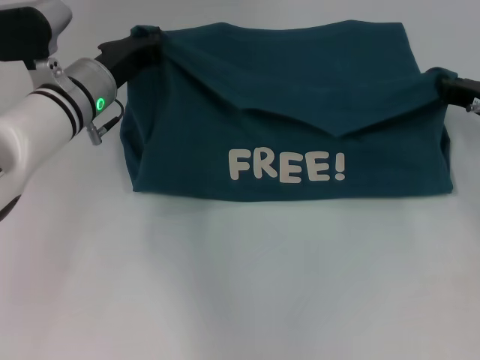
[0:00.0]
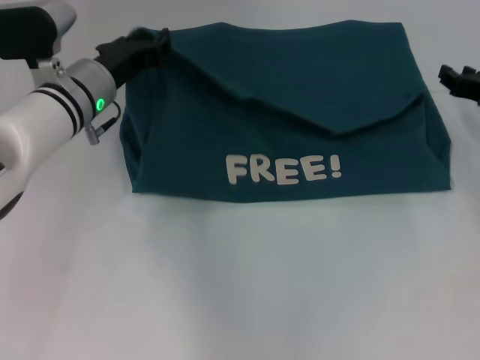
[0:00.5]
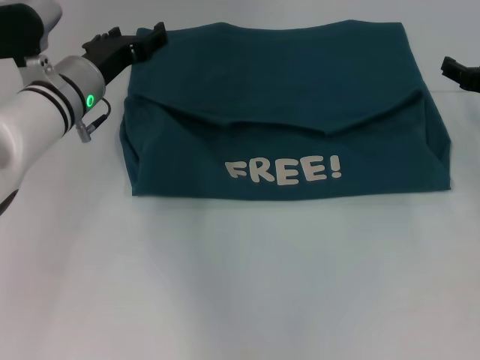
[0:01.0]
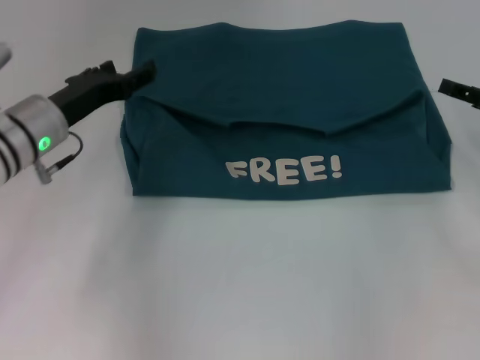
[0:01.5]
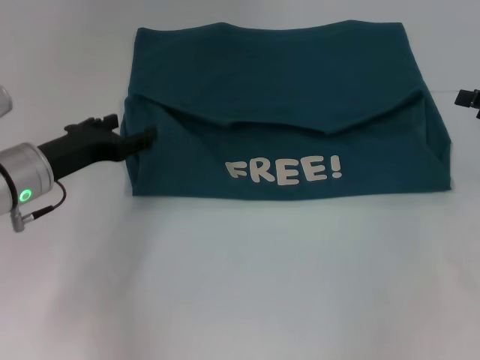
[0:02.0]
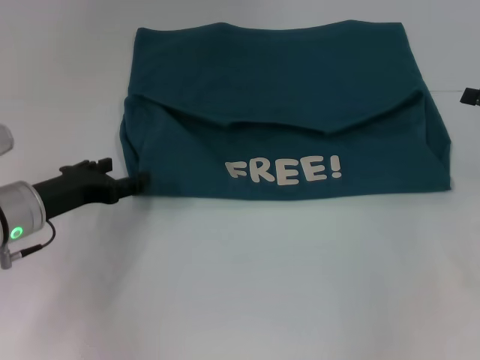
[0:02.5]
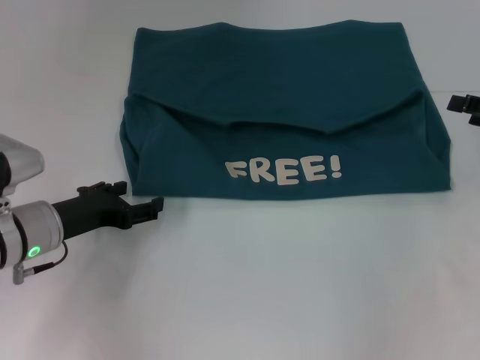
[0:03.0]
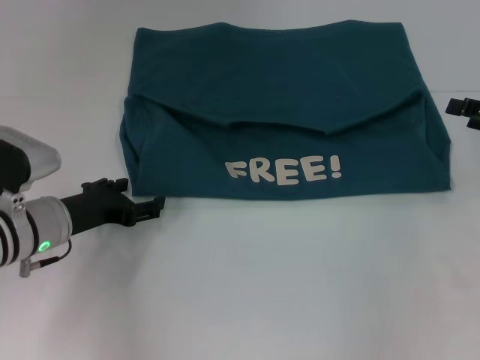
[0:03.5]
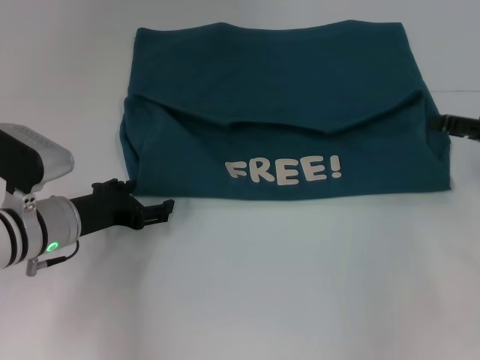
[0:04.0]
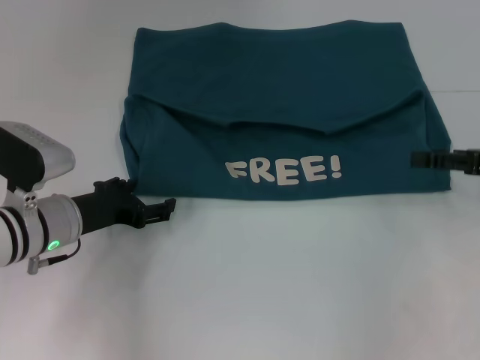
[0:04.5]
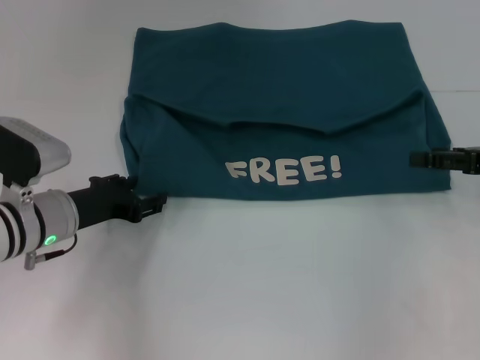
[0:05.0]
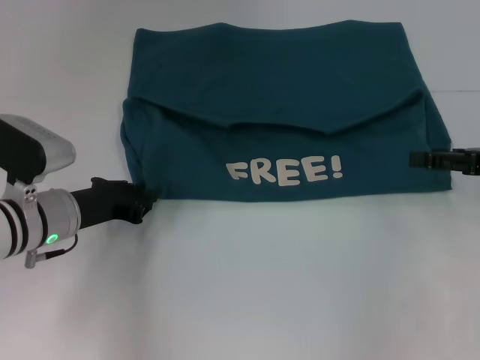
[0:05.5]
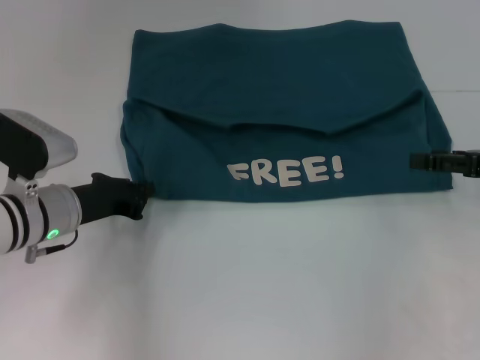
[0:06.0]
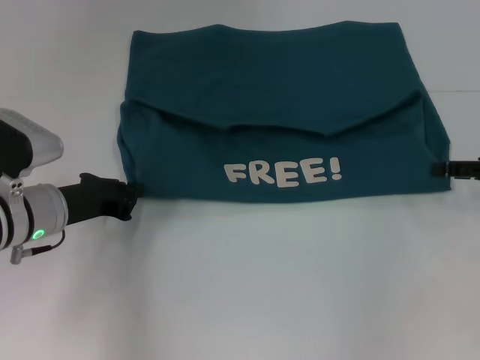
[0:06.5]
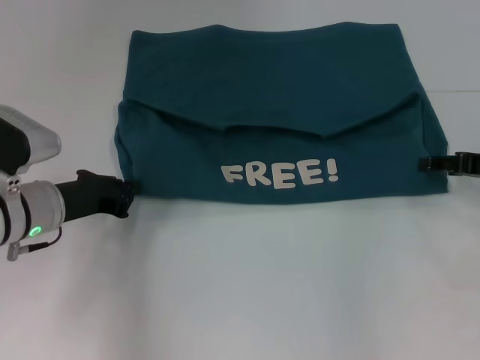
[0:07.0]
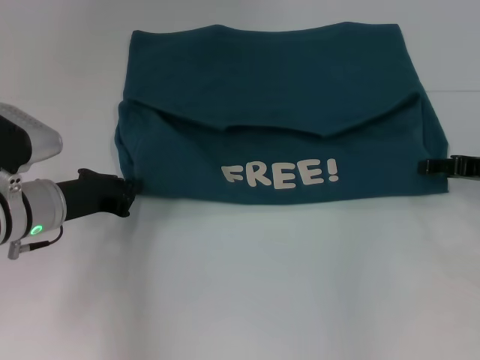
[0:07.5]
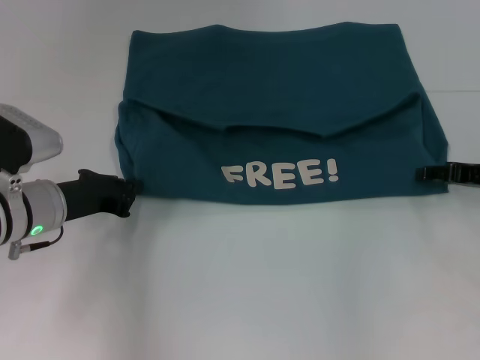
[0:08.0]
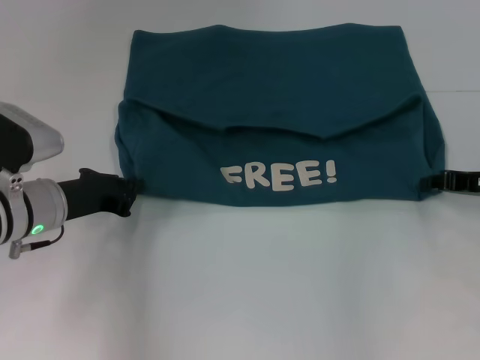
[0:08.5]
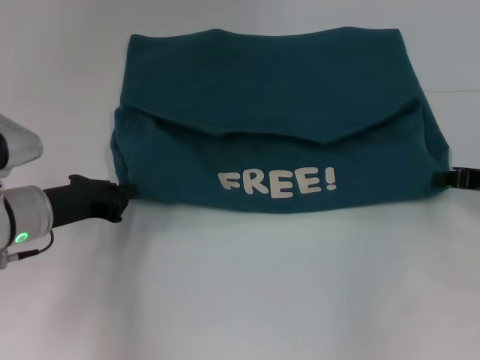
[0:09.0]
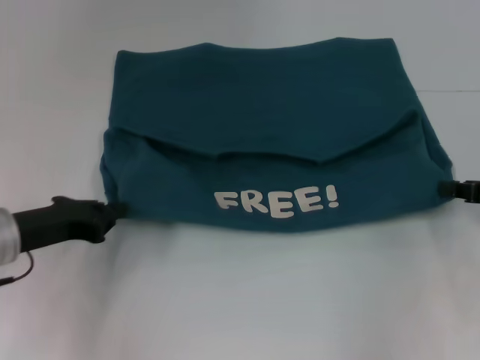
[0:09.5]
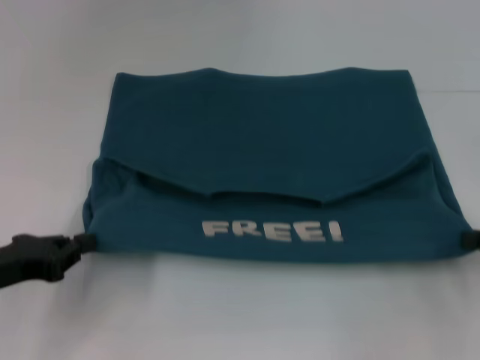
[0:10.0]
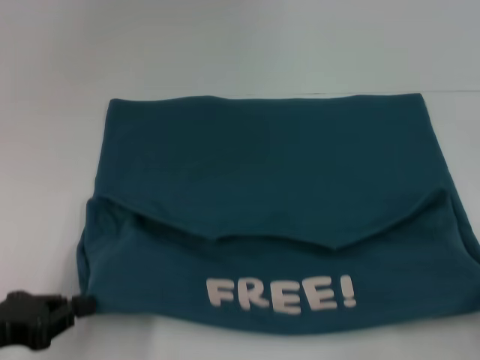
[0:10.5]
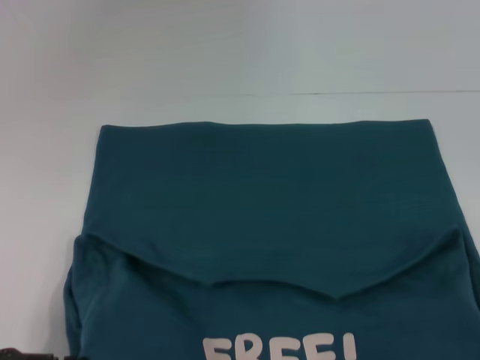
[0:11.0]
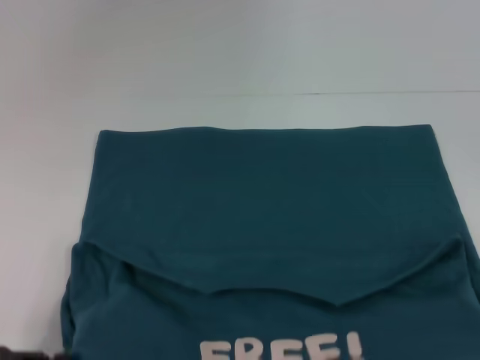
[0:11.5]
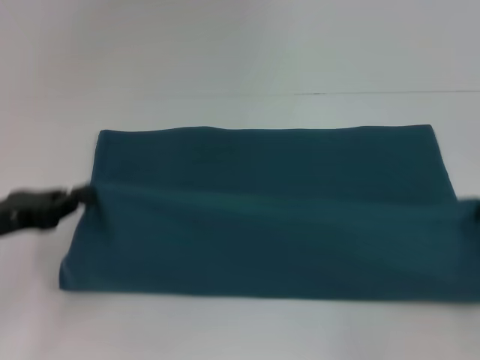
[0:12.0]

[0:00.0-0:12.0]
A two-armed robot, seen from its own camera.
Step, 0:01.0 to 0:10.5: Pull the clothes with your left hand.
Step, 0:01.0 to 0:10.5: Pull the clothes with your right hand.
0:00.0 to 0:02.0: The left gripper travels backward and to the left by roughly 10 cm, and opens up. Meanwhile the right gripper travels to the right and backward by roughly 10 cm, and opens its fingers.
0:02.0 to 0:04.0: The left gripper changes place by about 5 cm.
0:04.0 to 0:06.0: The left gripper closes.
0:06.0 to 0:08.0: The right gripper ends up some 5 cm from where it was.
0:08.0 to 0:10.0: The left gripper heads backward and to the left, covering roughly 10 cm, while the right gripper goes about 10 cm backward, and closes its fingers.
0:10.0 to 0:12.0: The right gripper reaches approximately 10 cm backward, then returns; the left gripper reaches roughly 10 cm backward, then returns.

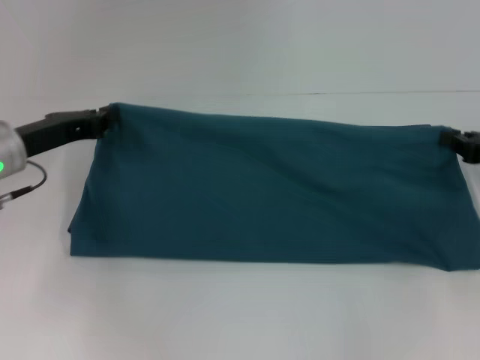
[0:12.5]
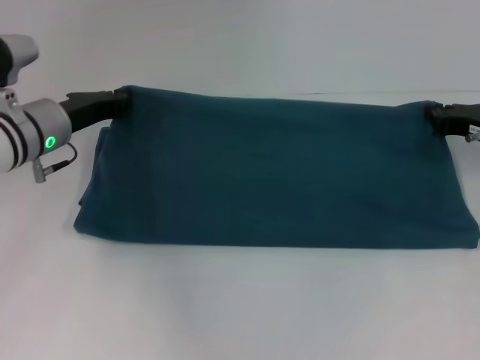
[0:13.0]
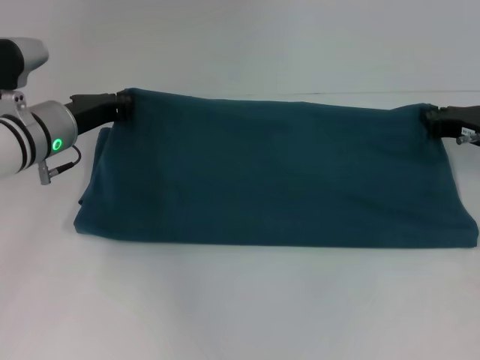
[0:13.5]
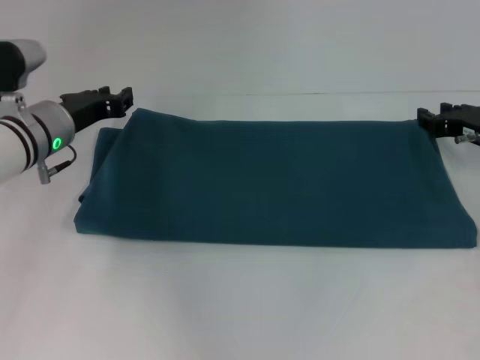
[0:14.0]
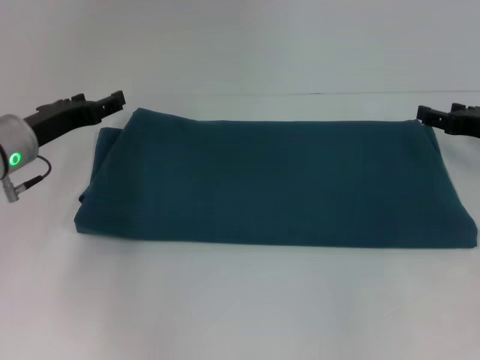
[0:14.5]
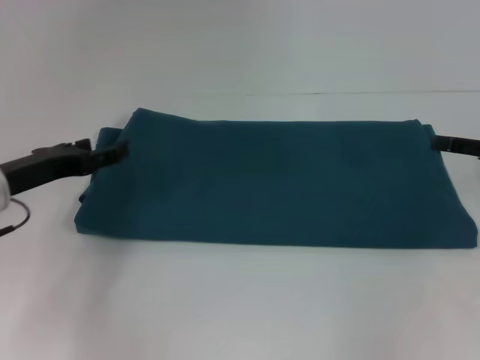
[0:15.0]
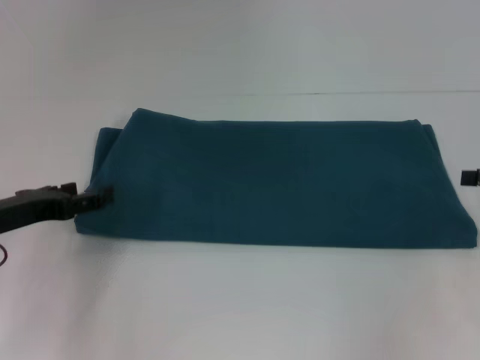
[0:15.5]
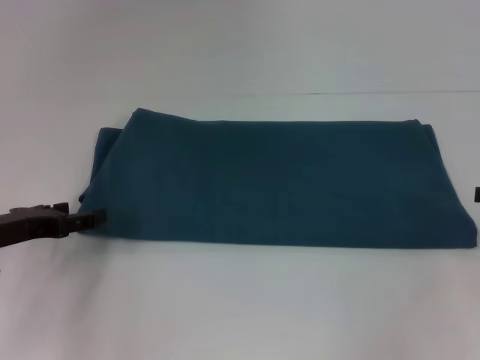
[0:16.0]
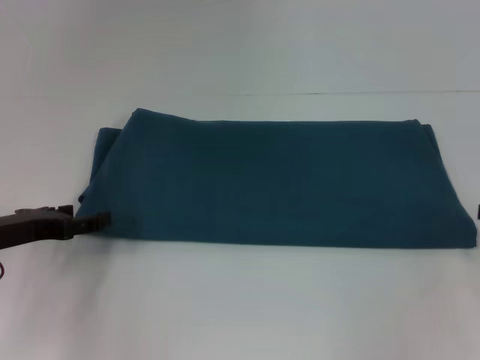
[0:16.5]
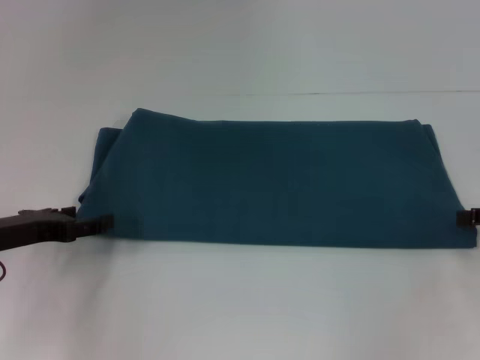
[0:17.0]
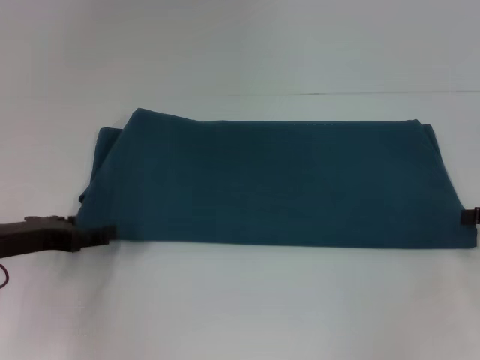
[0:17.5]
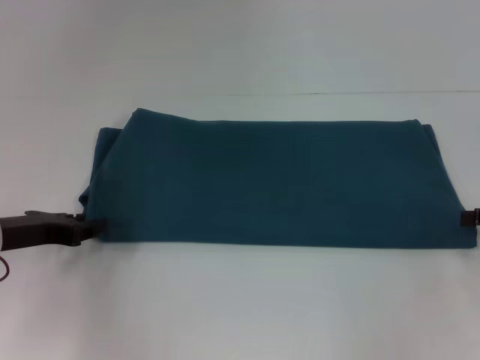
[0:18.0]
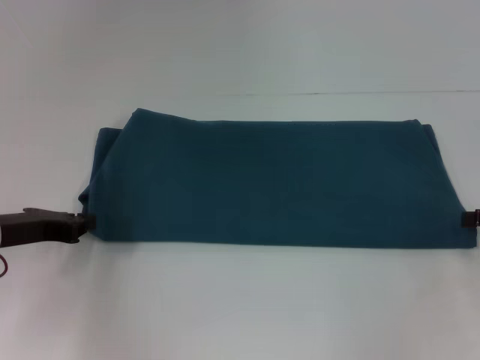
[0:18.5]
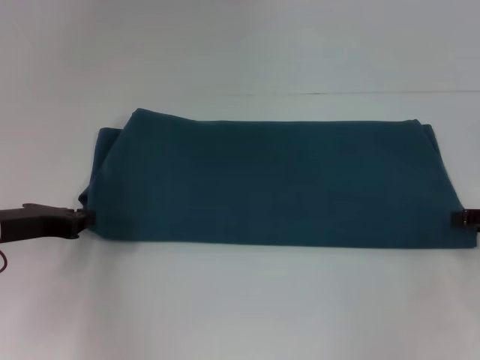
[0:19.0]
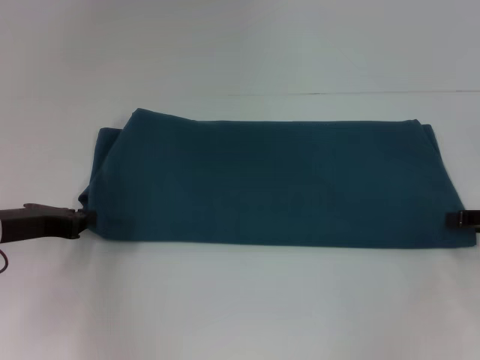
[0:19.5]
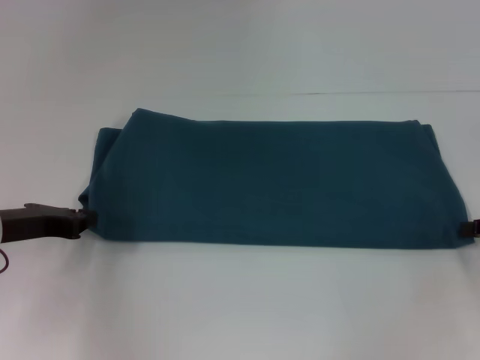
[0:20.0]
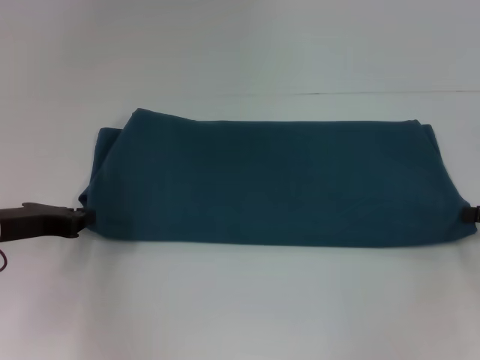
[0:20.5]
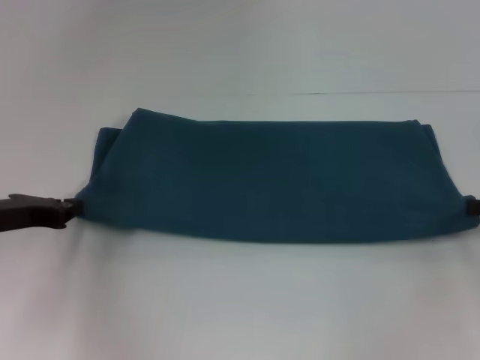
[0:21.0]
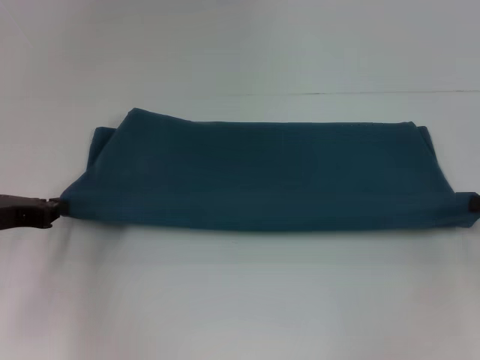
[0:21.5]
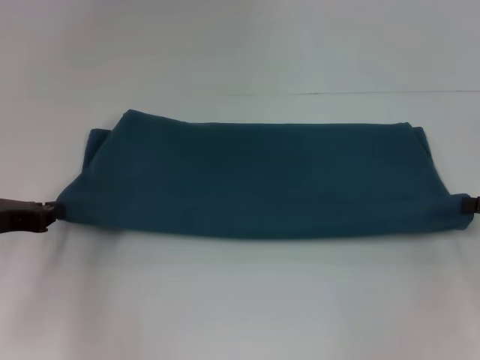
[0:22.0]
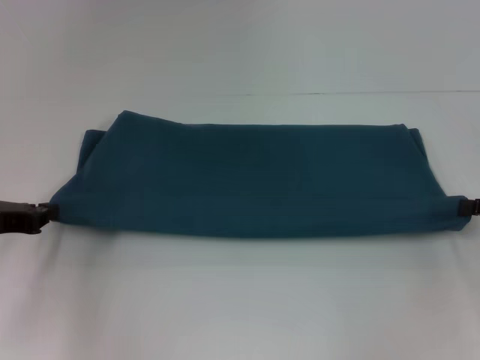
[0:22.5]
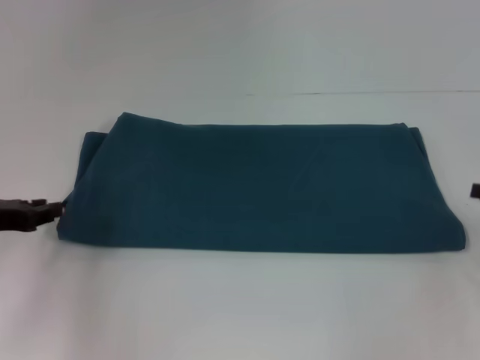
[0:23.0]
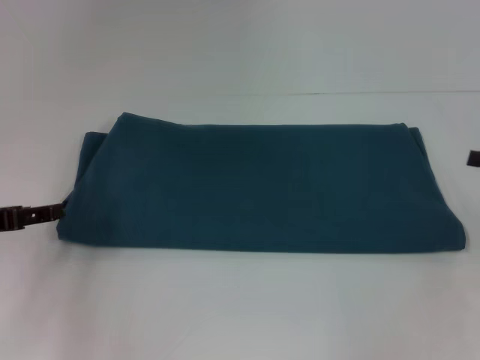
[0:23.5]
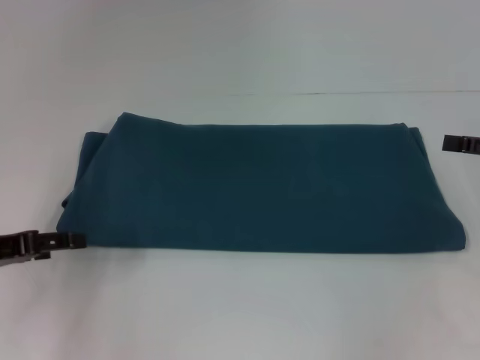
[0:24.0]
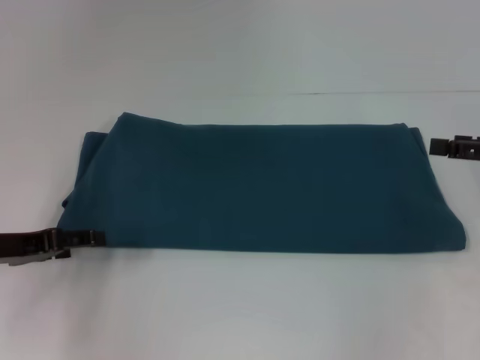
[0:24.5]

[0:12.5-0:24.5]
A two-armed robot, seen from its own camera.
Step, 0:12.5 to 0:14.5: Fold the clothes to the right.
0:12.5 to 0:14.5: The right gripper opens up, while the left gripper opens up.
0:14.5 to 0:16.5: The right gripper is displaced backward and to the right by about 10 cm; the left gripper moves backward, roughly 10 cm.
0:16.5 to 0:18.5: The left gripper closes up.
0:20.5 to 0:22.5: The grippers stay close to where they were, moving slightly.
0:22.5 to 0:24.5: The right gripper shifts some 5 cm upward, and opens its fingers. The left gripper opens.

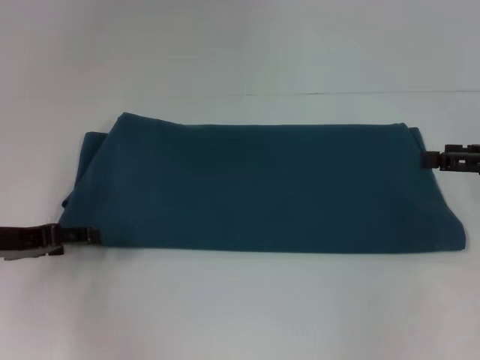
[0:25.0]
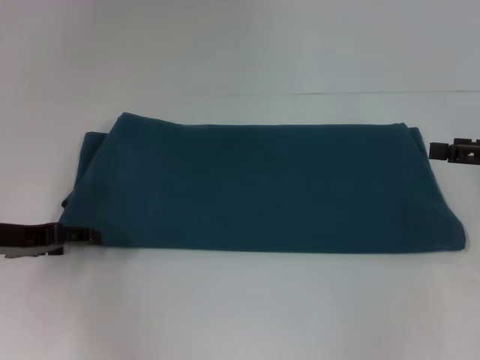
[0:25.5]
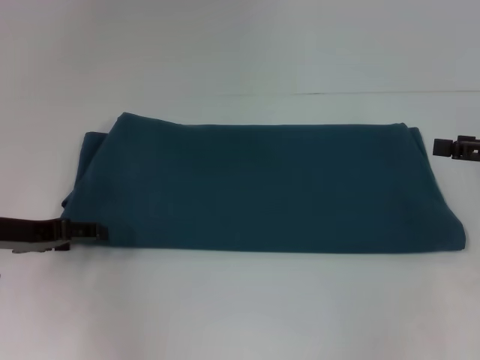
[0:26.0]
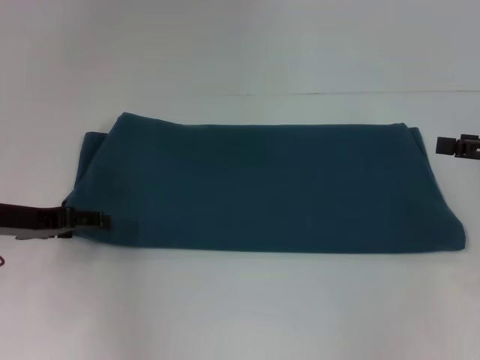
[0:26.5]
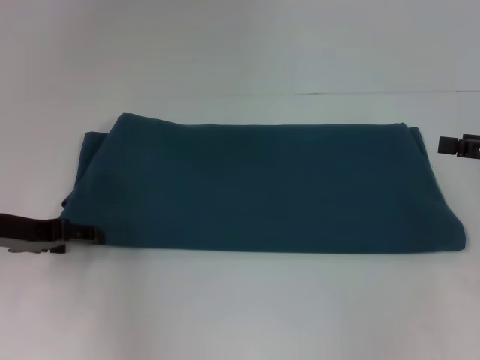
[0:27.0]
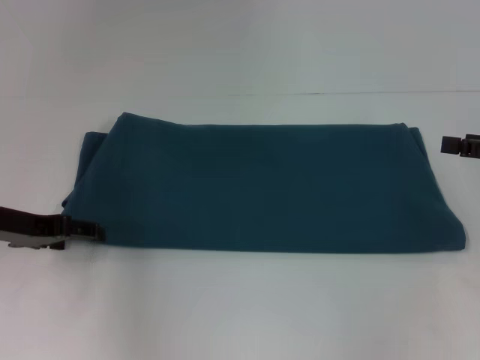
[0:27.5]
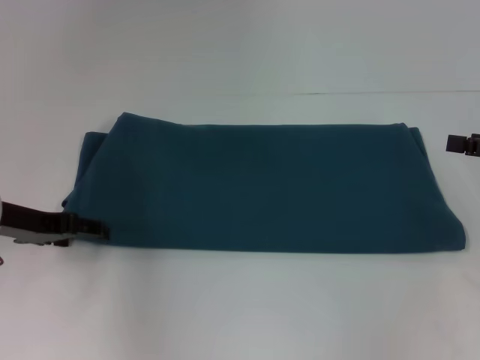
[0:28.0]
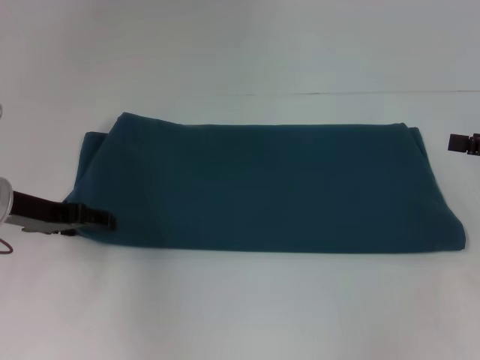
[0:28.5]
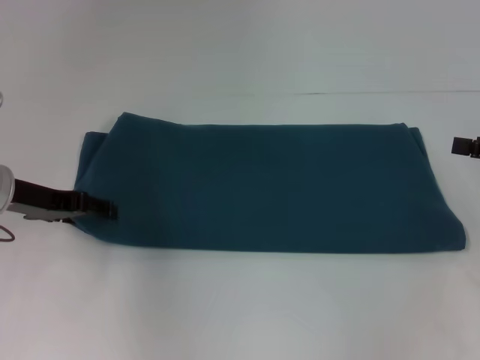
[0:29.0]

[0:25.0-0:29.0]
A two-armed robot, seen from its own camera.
0:25.0 to 0:27.0: The grippers move only a little.
0:27.0 to 0:29.0: The grippers move only a little.
